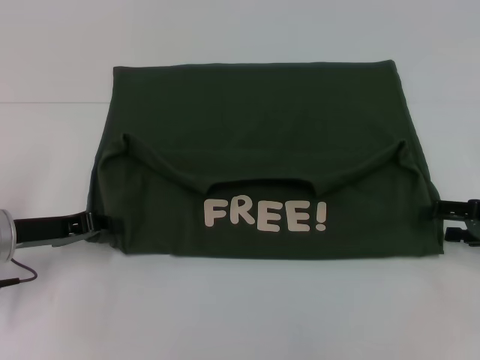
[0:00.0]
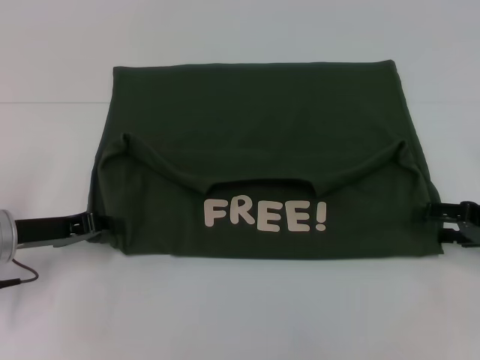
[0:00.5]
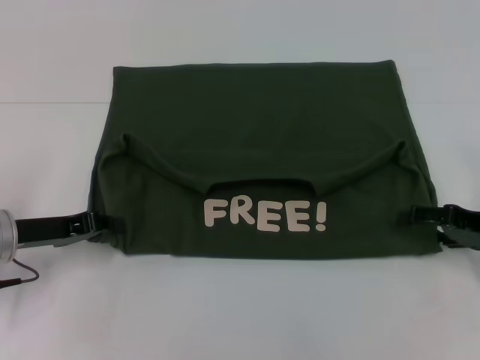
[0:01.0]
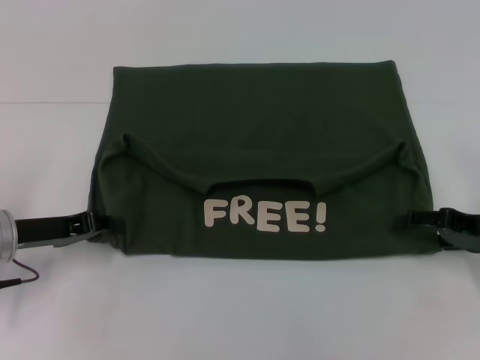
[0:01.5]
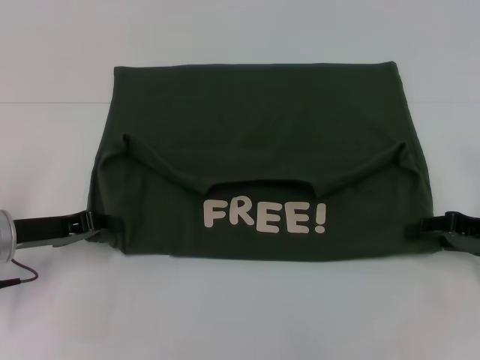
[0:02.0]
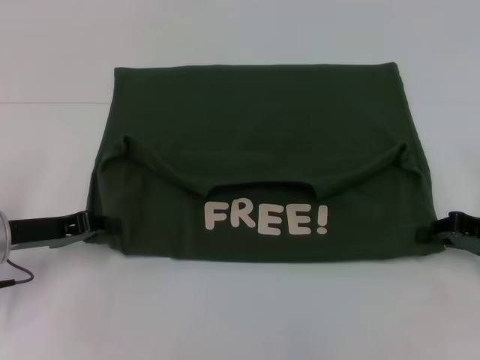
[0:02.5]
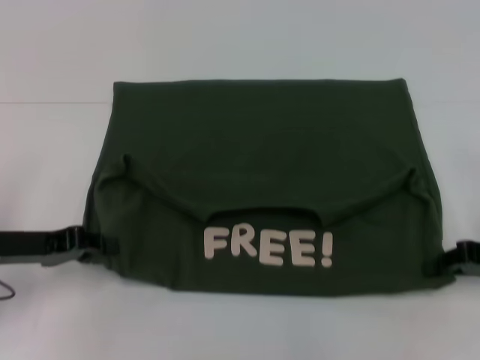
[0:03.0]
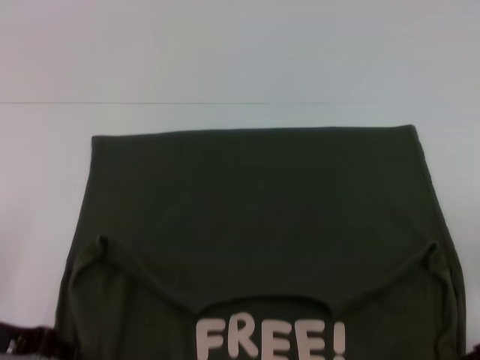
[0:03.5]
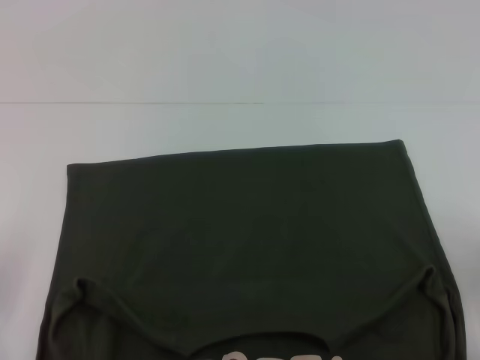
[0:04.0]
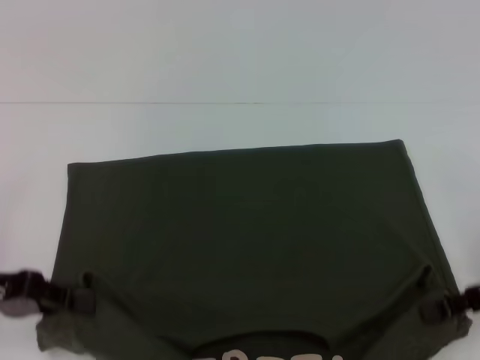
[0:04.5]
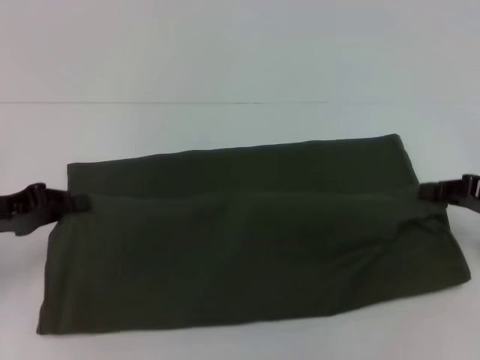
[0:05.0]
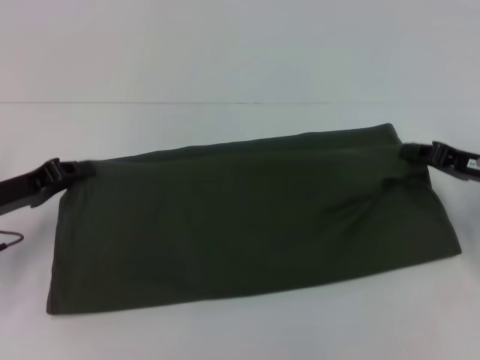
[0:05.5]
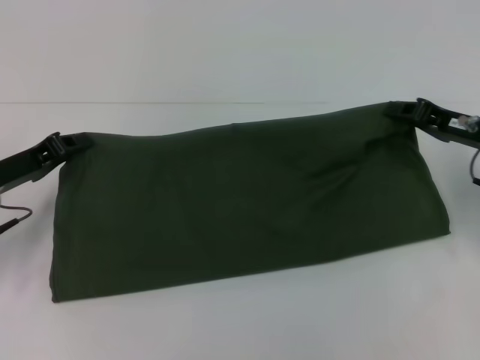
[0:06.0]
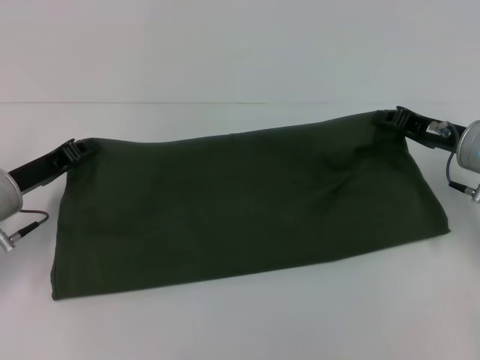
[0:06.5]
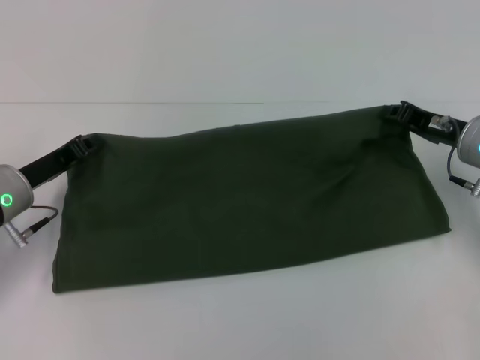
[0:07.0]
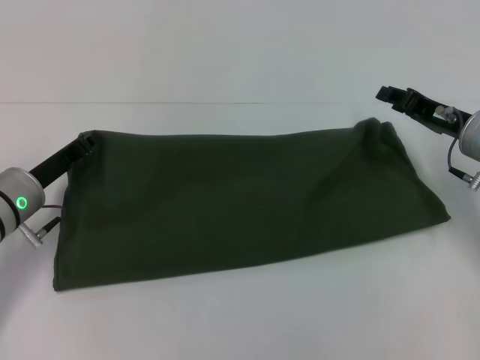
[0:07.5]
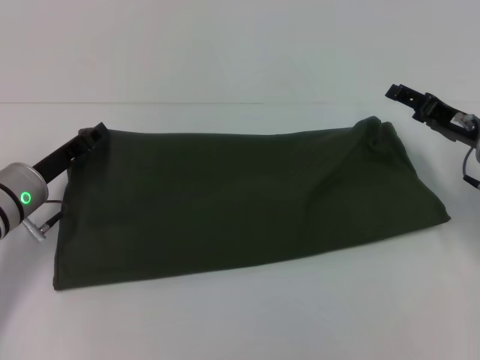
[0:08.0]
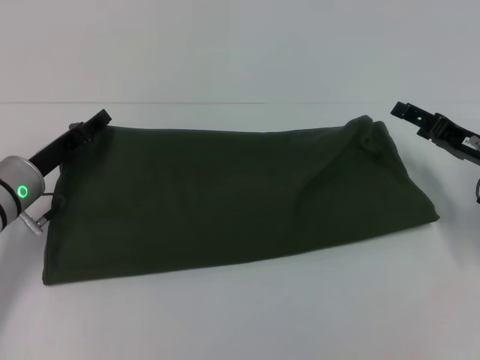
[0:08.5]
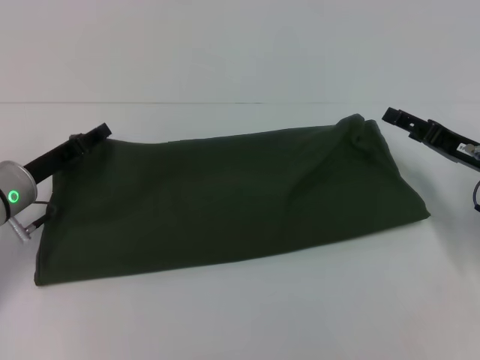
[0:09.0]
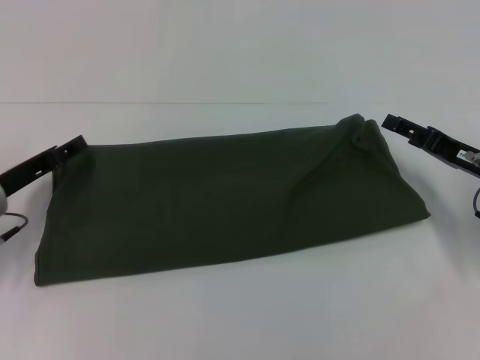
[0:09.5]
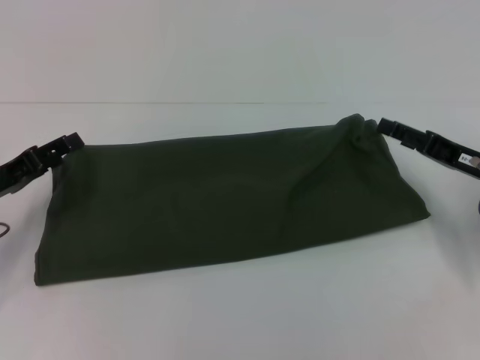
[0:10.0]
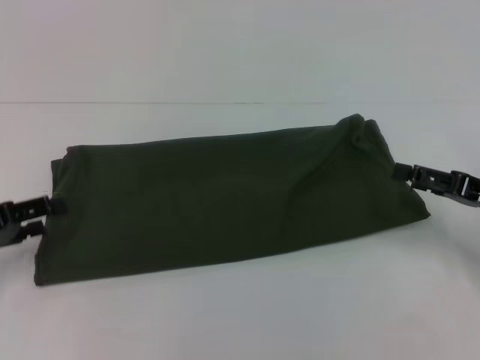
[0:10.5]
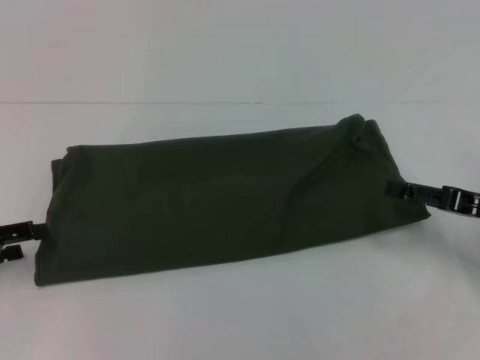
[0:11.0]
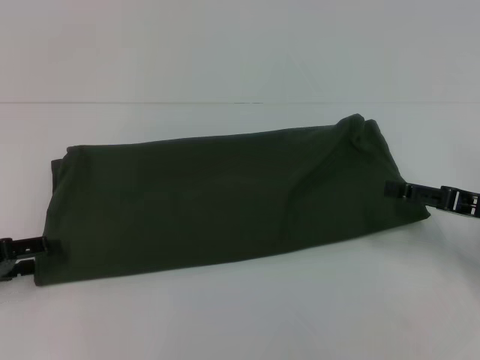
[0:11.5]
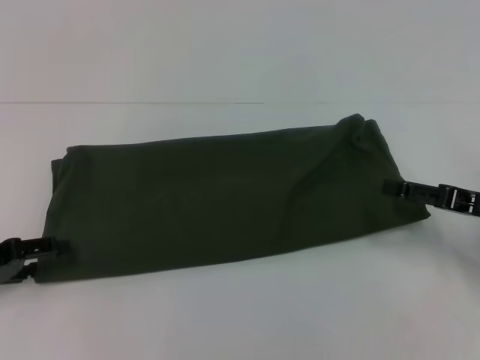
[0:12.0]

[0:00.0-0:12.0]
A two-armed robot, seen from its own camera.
Step, 0:00.0 to 0:03.5: Pull the clothes with your left hand.
Step, 0:00.0 to 0:03.5: Pull the clothes with your right hand.
Step, 0:04.0 to 0:09.5: Fold the clothes with your left hand.
Step, 0:04.0 to 0:09.5: Fold the clothes with your right hand.
0:00.0 to 0:02.0: The grippers stay close to where they were, moving slightly.
0:02.0 to 0:04.0: The left gripper moves backward, roughly 10 cm; the right gripper travels backward by about 5 cm, and closes.
0:04.0 to 0:06.0: Both grippers move forward, roughly 10 cm.
0:06.0 to 0:08.0: The right gripper opens up, while the left gripper changes place by roughly 5 cm.
0:08.0 to 0:10.0: The left gripper moves to the left, approximately 5 cm, and opens up.
0:10.0 to 0:12.0: The left gripper changes place by about 5 cm.

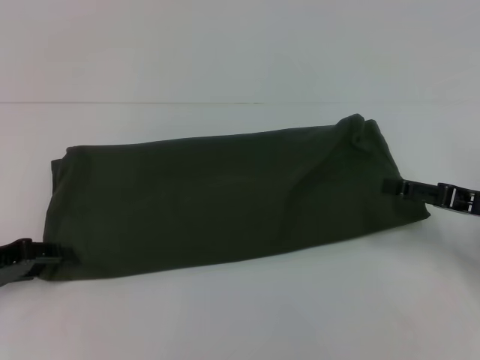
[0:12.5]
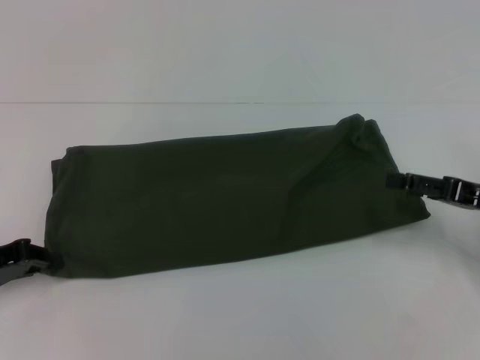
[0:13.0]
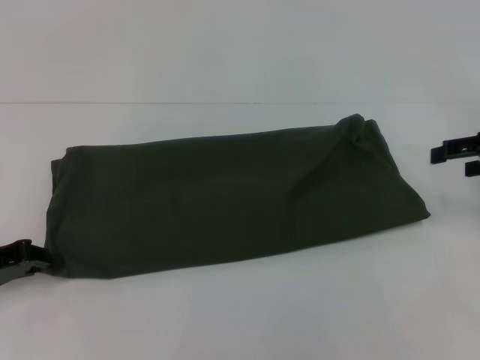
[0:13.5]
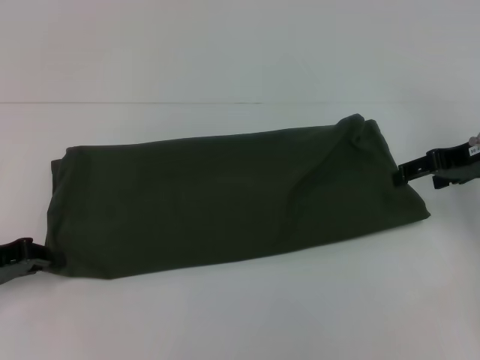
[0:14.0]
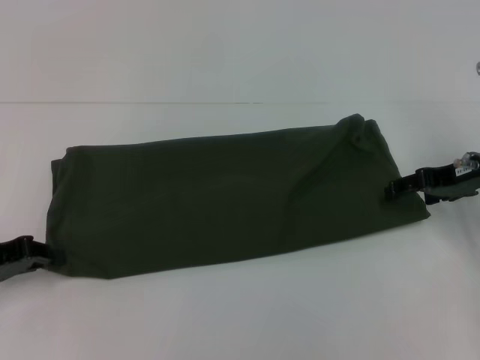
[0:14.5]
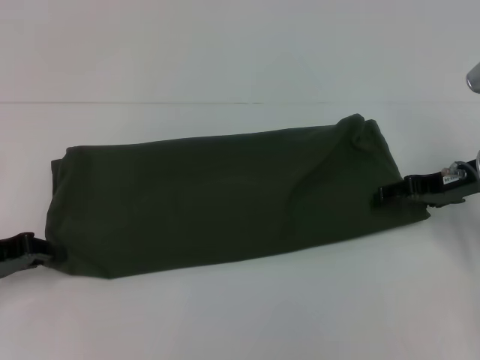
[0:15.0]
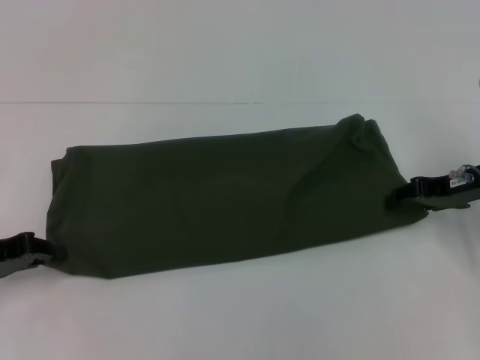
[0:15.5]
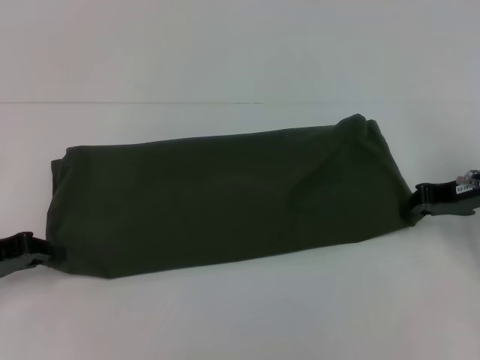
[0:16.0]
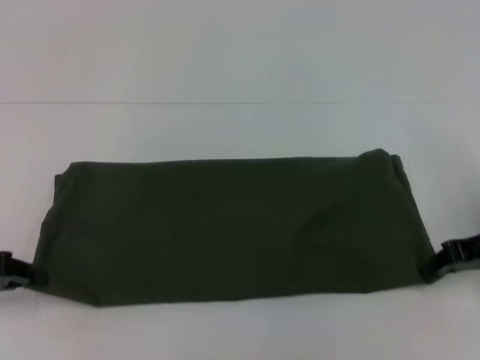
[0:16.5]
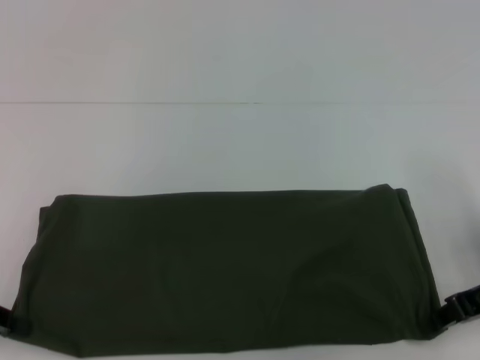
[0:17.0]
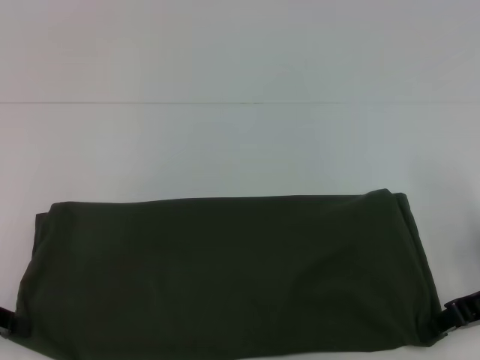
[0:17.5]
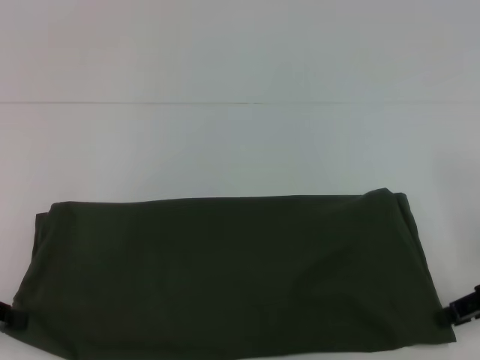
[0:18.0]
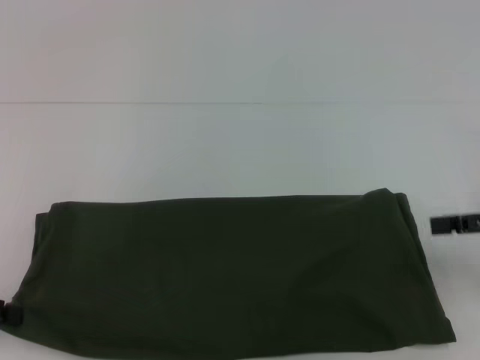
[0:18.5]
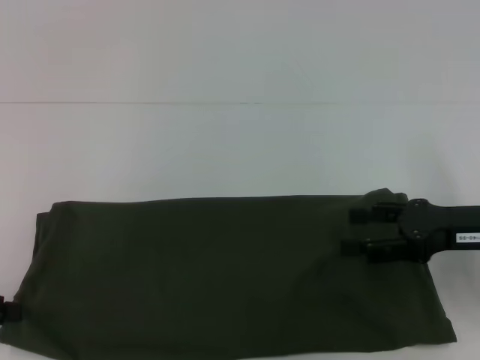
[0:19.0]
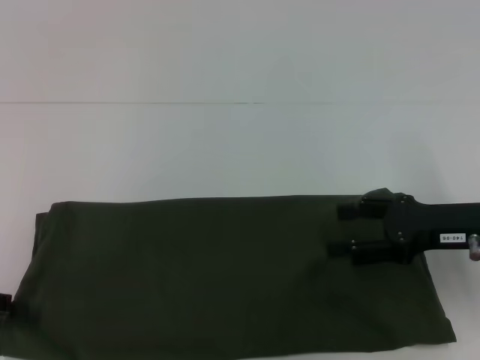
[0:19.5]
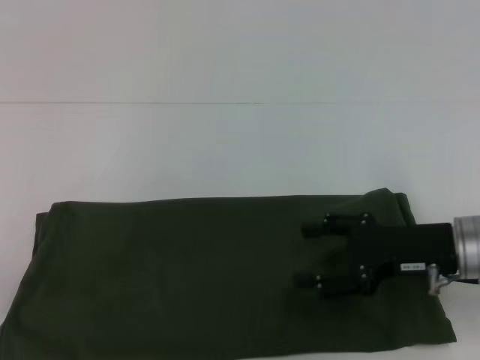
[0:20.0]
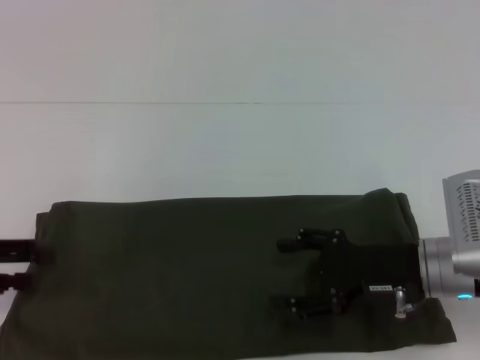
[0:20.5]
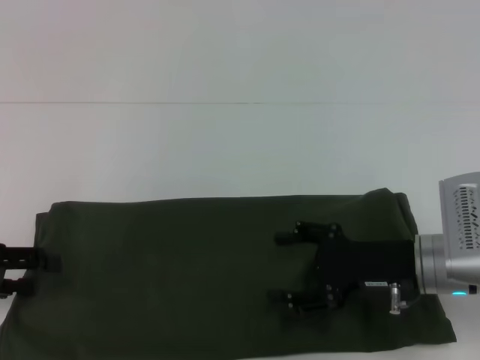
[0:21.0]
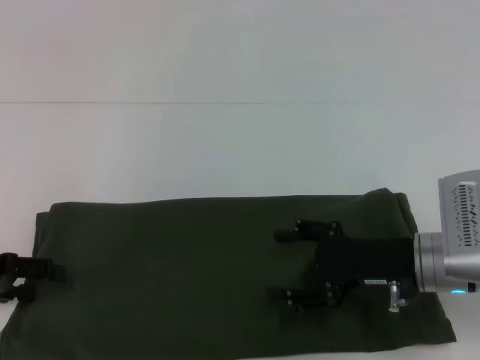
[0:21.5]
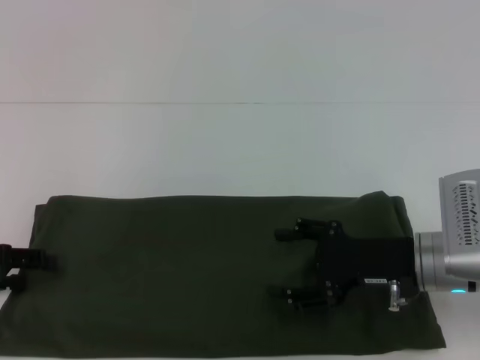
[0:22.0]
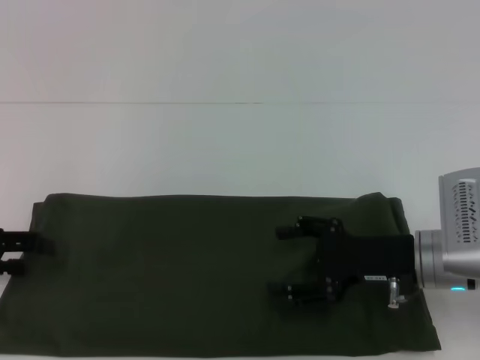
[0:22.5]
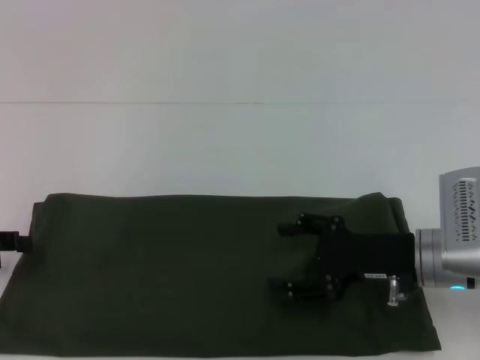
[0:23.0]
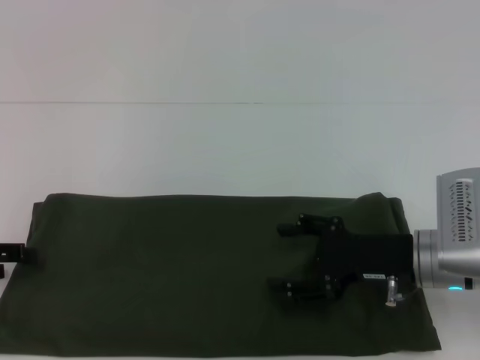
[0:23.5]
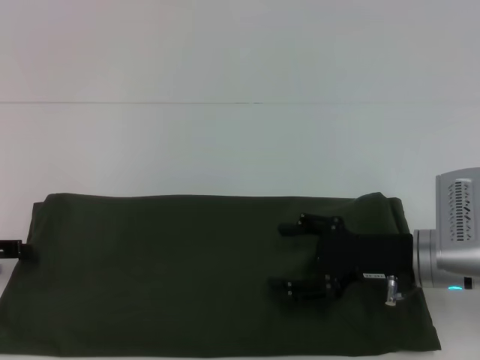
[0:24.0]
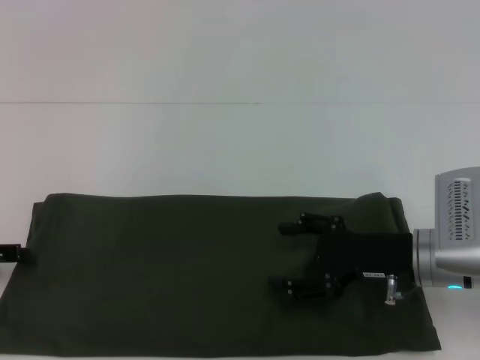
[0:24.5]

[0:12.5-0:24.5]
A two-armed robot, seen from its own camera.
Step, 0:12.5 to 0:17.5: Pull the clothes with your left hand.
Step, 0:12.5 to 0:17.5: Pull the clothes with your right hand.
0:12.5 to 0:14.5: The left gripper closes up. Meanwhile the right gripper heads forward, covering about 10 cm.
0:14.5 to 0:16.5: The right gripper travels backward by some 5 cm, and closes up.
0:16.5 to 0:18.5: The right gripper ends up approximately 5 cm from where it was, and opens its fingers.
0:18.5 to 0:20.5: The right gripper travels to the left and downward by roughly 15 cm. Meanwhile the left gripper opens.
0:20.5 to 0:22.5: There are only small adjustments of the grippers.
0:22.5 to 0:24.5: There are only small adjustments of the grippers.

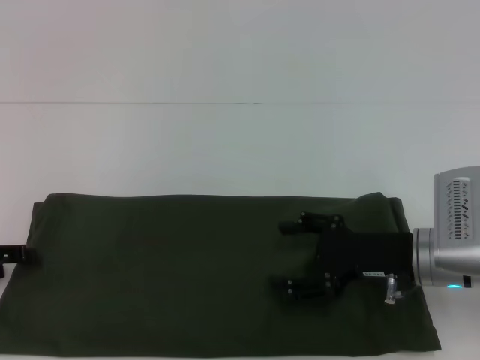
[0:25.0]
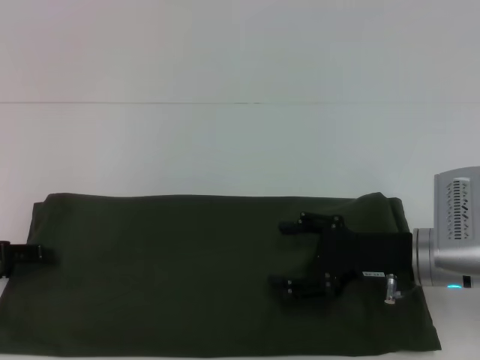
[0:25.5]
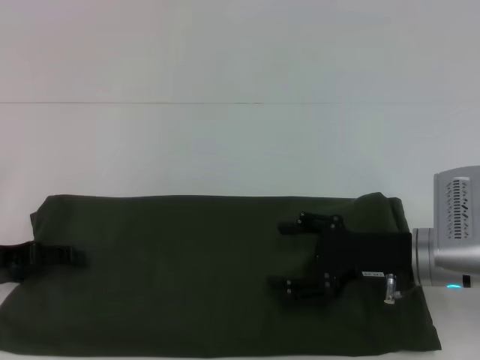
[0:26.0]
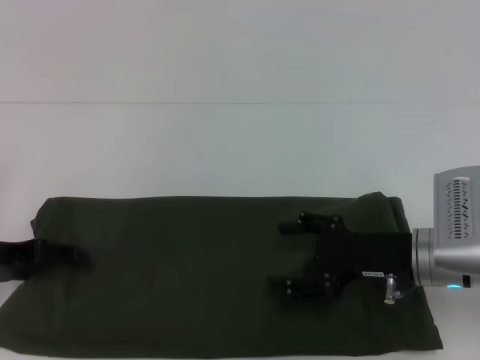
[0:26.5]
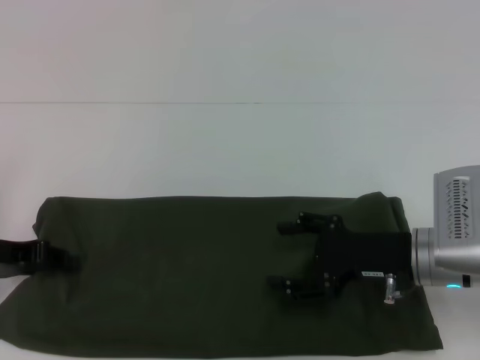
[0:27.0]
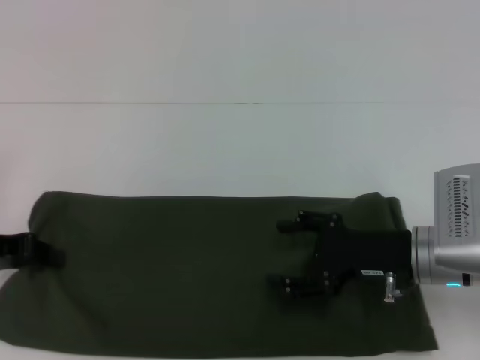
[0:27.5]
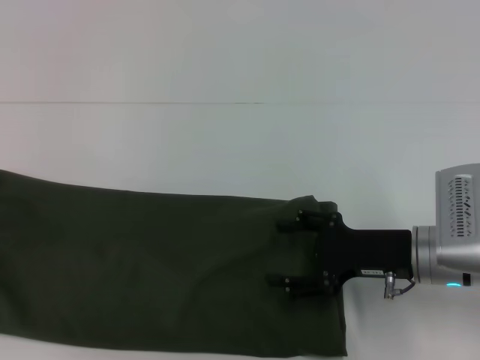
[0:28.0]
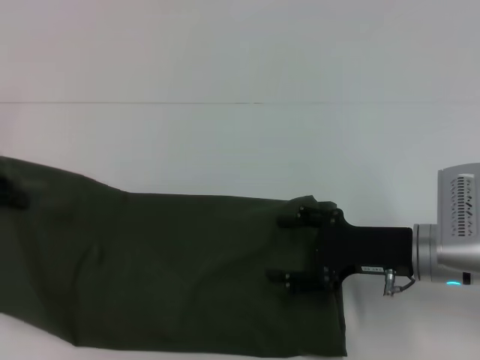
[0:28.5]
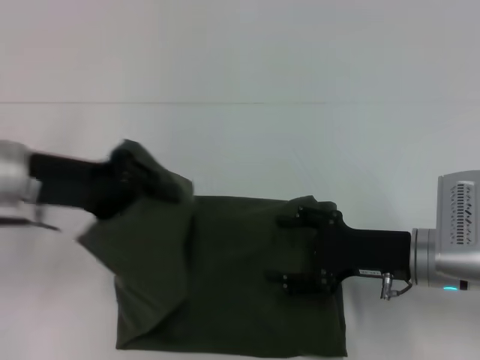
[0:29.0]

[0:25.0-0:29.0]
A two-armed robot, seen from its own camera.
0:25.0 to 0:27.0: The left gripper goes roughly 5 cm to the right, and closes its fingers.
0:27.0 to 0:29.0: The left gripper shifts about 10 cm to the right and upward.
